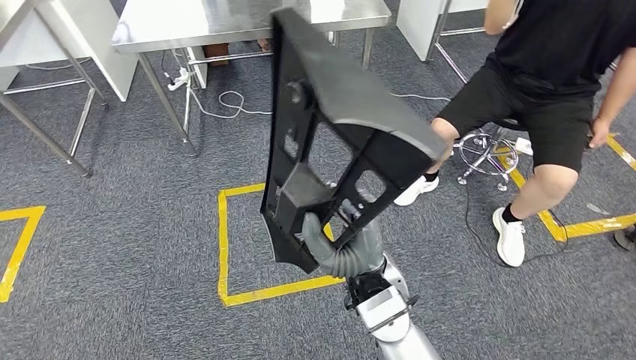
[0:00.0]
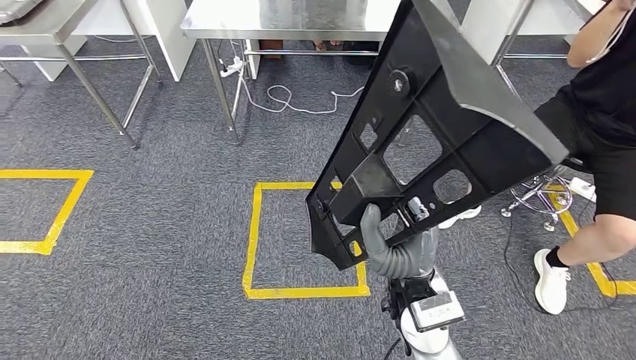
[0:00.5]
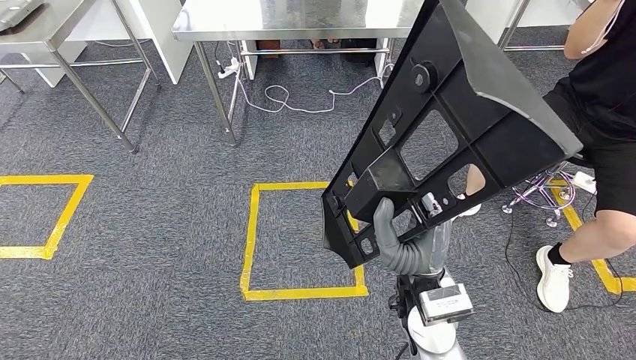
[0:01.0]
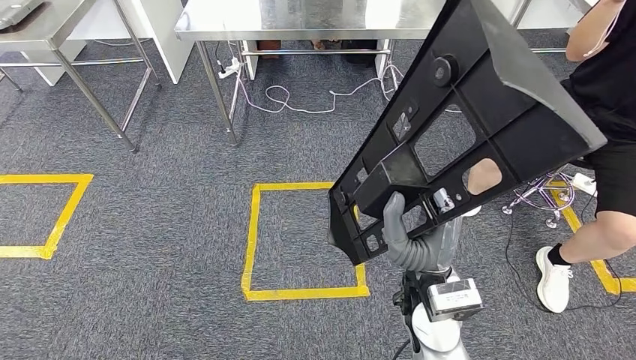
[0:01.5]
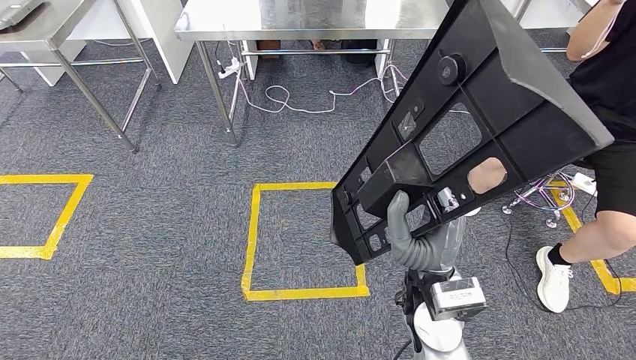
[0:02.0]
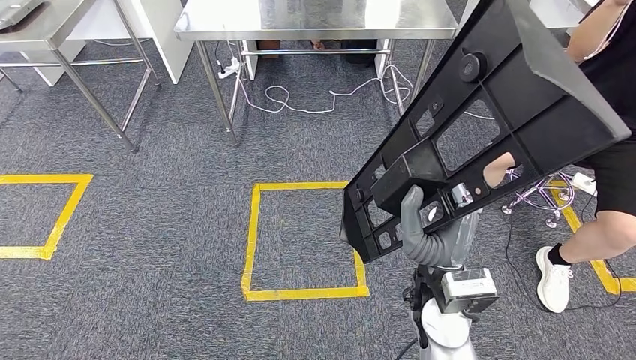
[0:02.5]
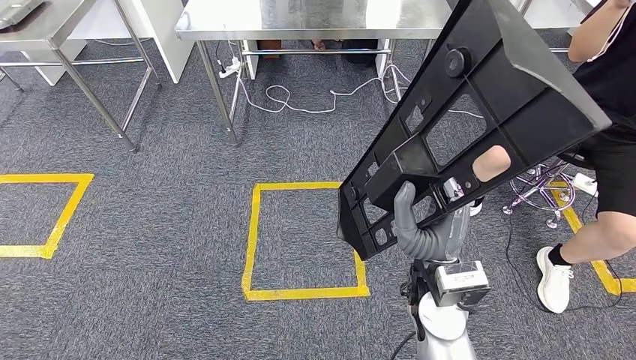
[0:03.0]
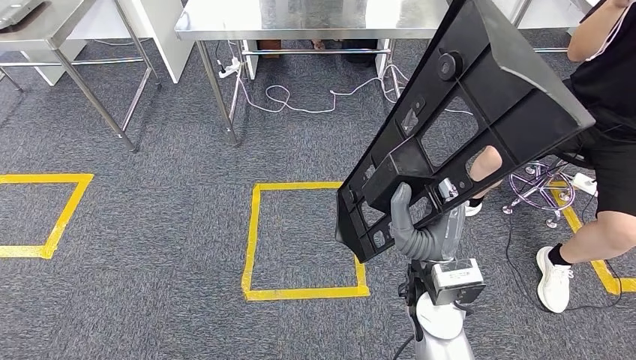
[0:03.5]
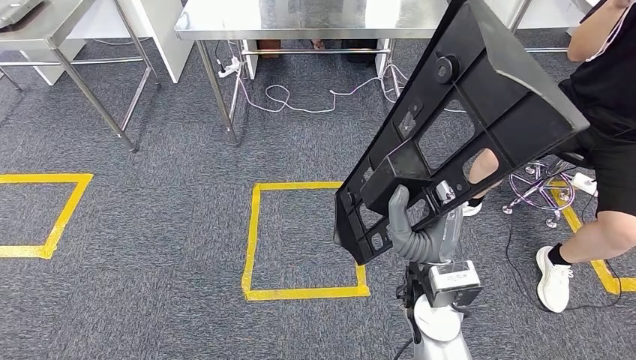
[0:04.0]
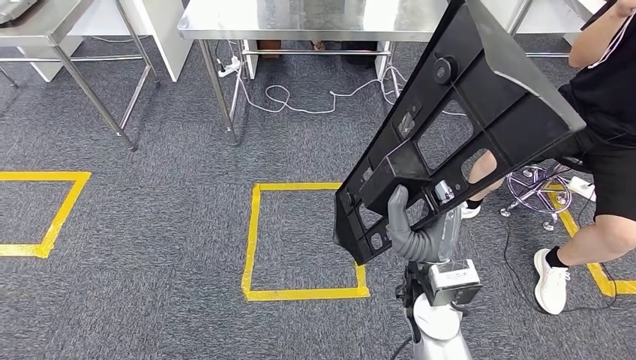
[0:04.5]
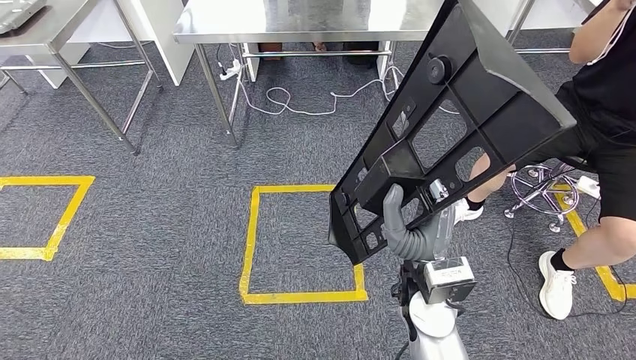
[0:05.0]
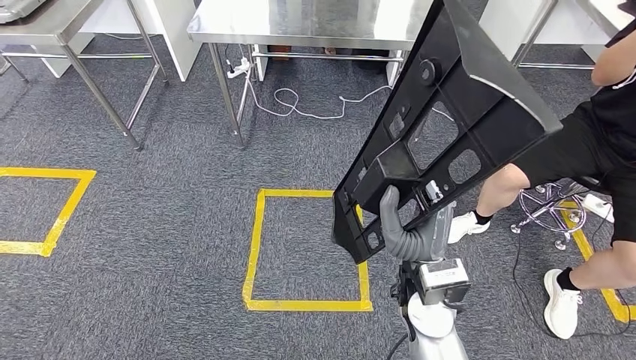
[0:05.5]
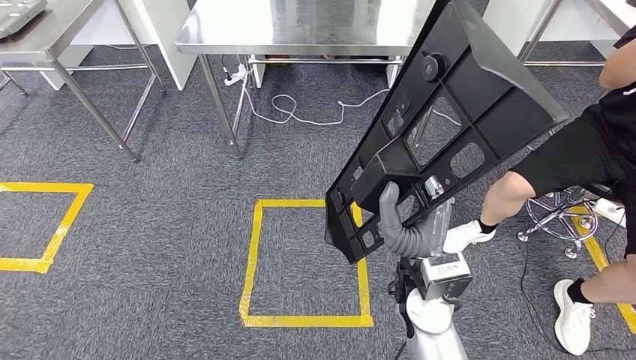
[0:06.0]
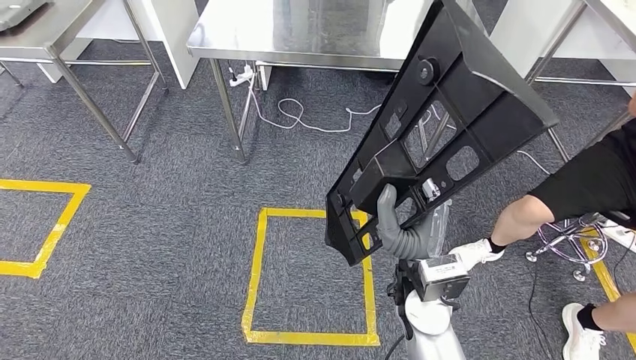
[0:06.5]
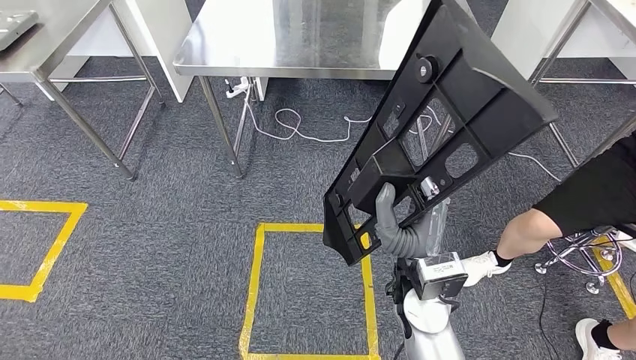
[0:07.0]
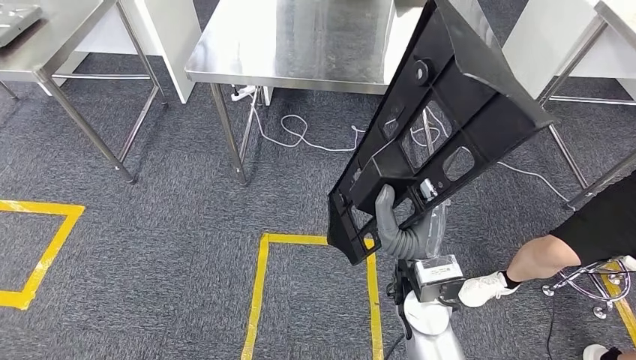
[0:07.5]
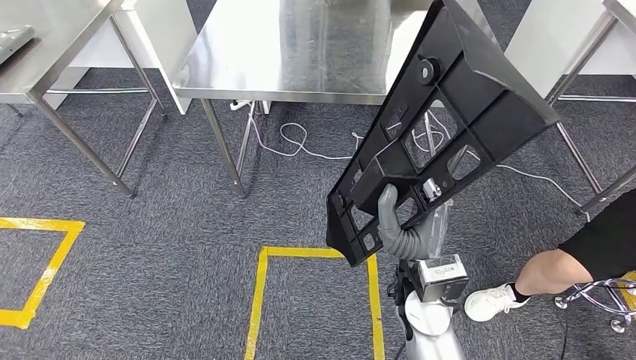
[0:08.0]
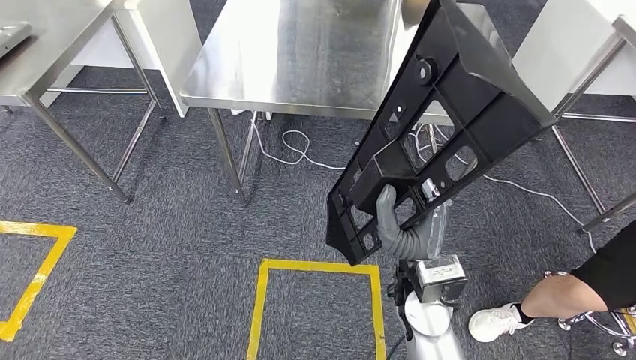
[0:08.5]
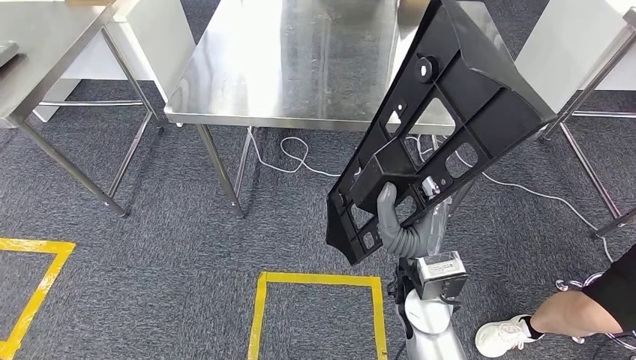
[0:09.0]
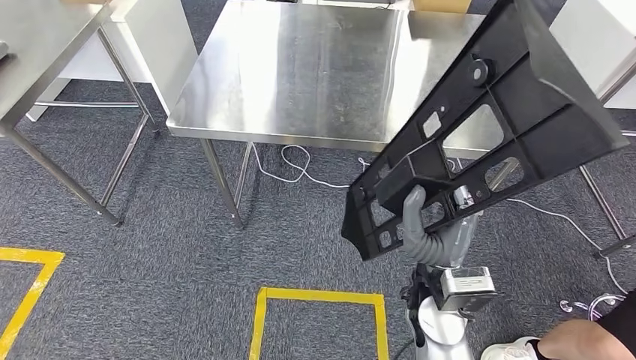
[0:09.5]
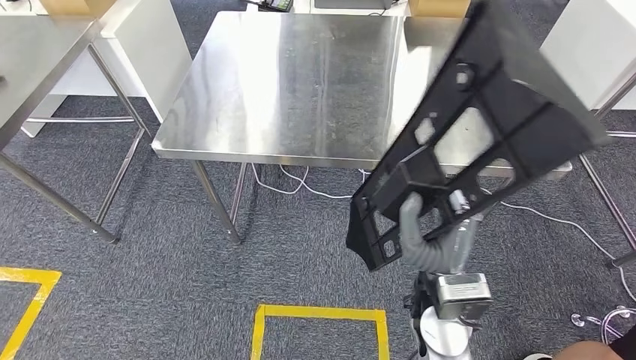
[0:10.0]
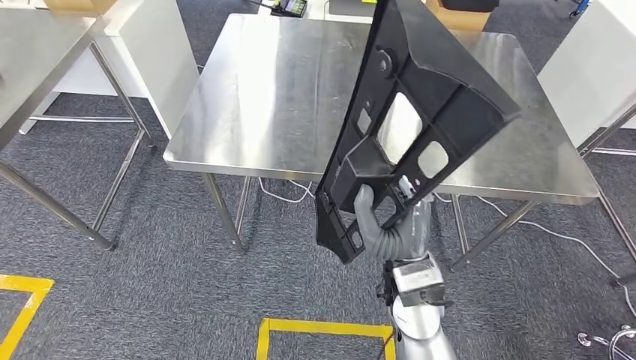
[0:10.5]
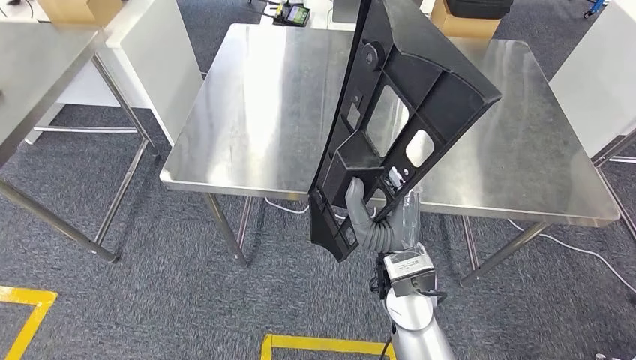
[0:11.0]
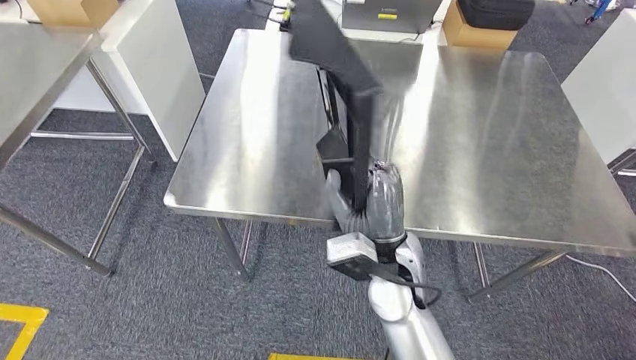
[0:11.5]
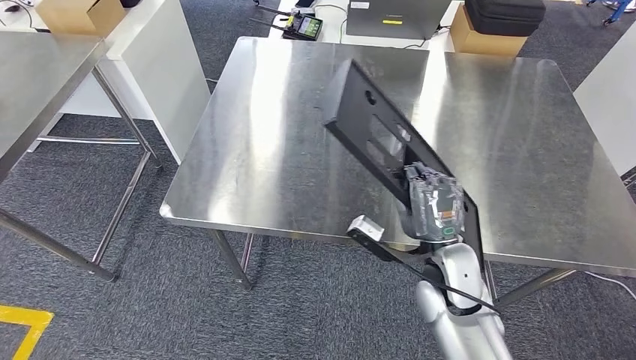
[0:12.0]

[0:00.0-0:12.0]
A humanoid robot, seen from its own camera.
Step, 0:00.0 to 0:08.5: Move the large material to the front of the workbench.
0:02.0 to 0:04.0: The hands make only small movements.

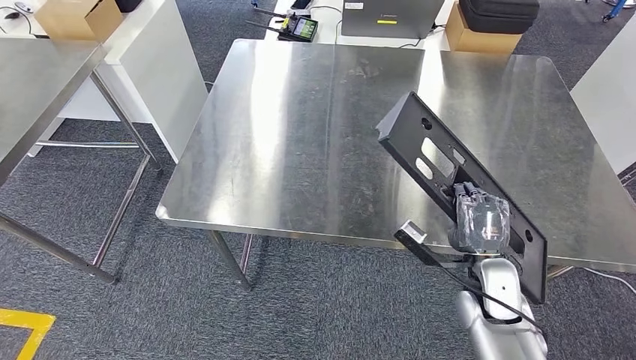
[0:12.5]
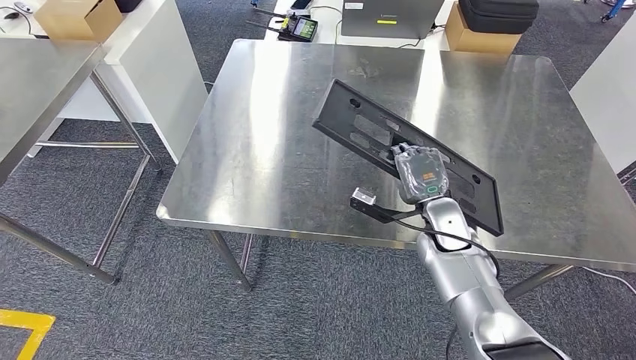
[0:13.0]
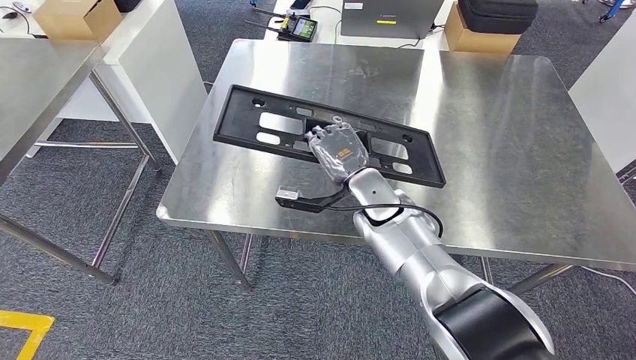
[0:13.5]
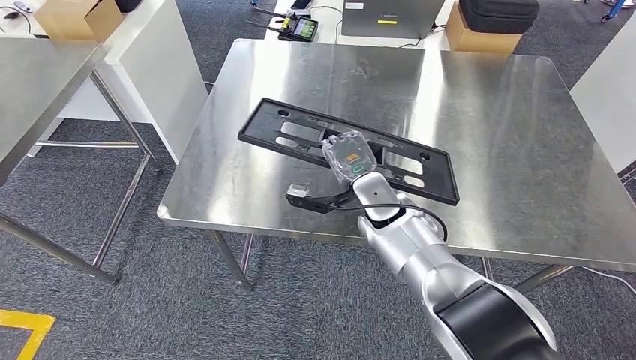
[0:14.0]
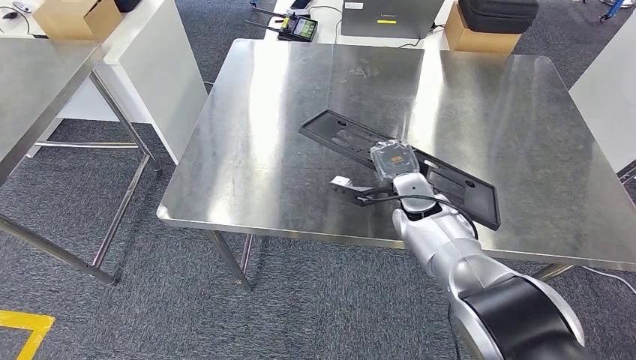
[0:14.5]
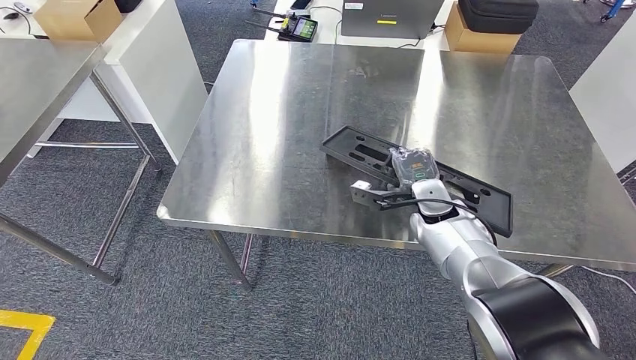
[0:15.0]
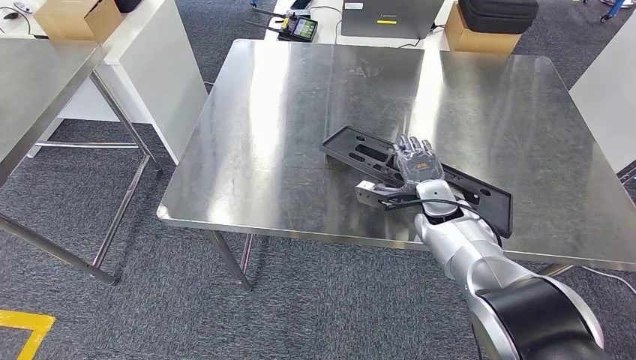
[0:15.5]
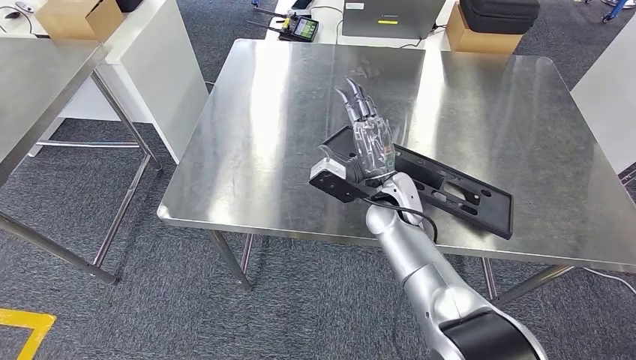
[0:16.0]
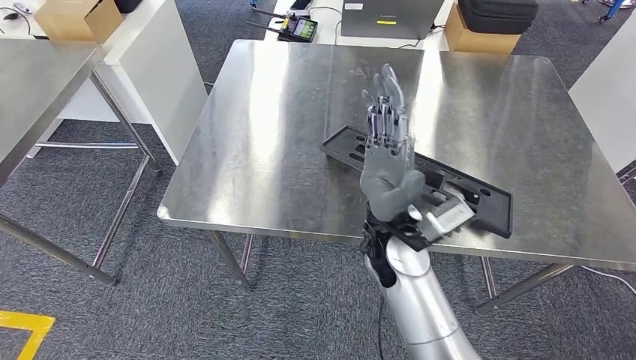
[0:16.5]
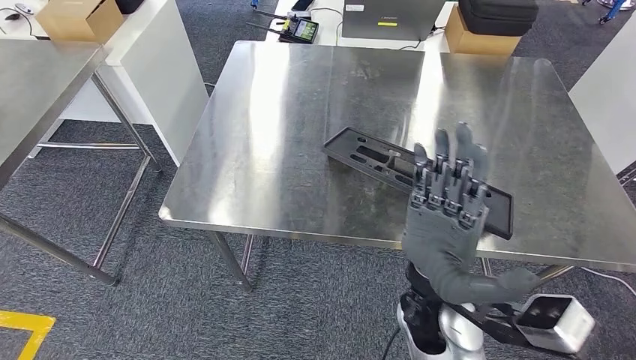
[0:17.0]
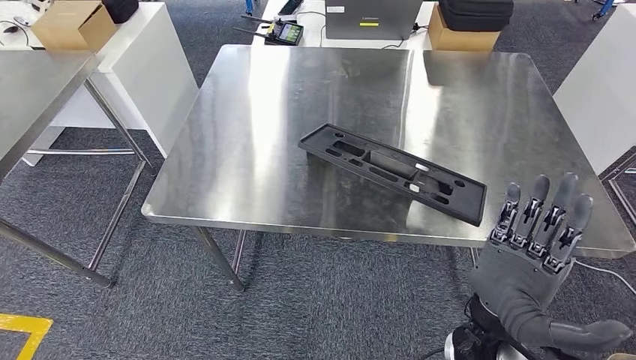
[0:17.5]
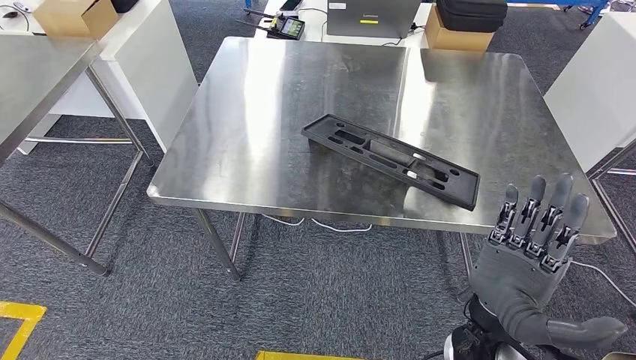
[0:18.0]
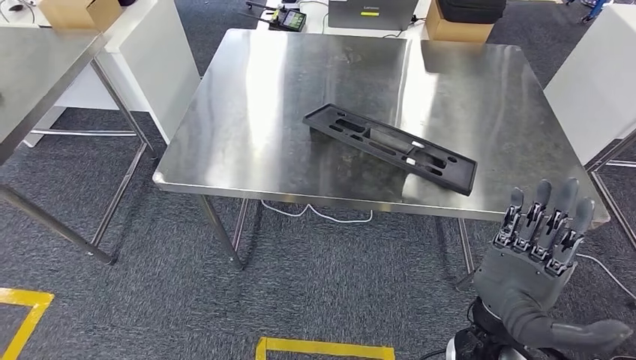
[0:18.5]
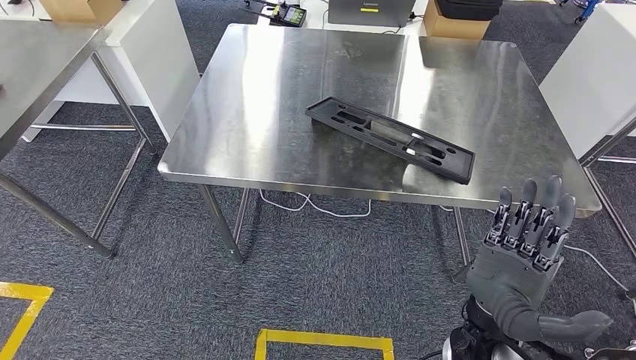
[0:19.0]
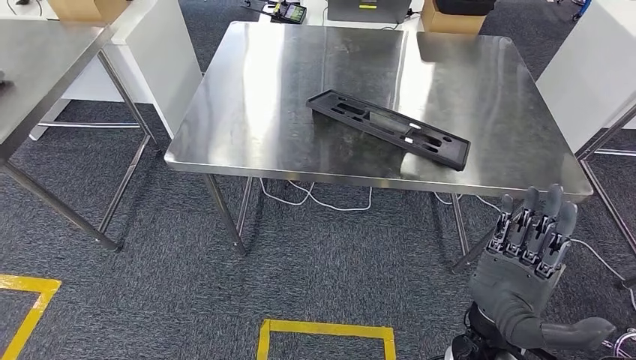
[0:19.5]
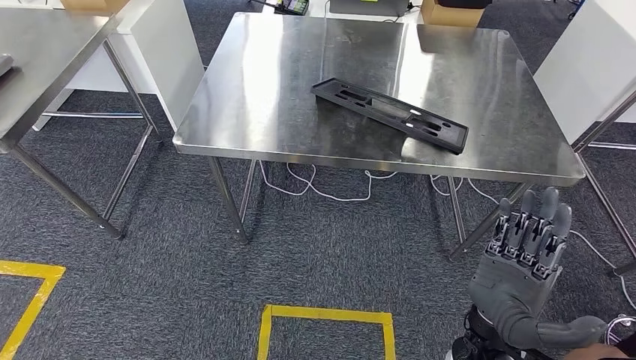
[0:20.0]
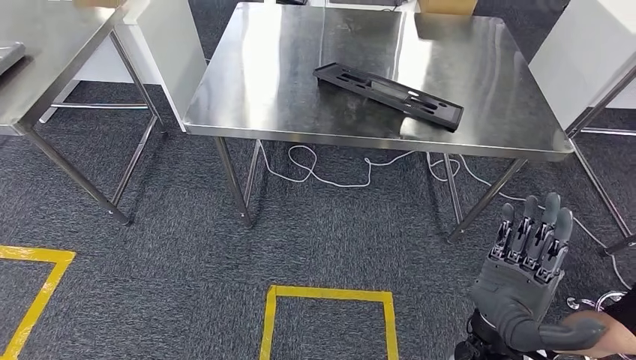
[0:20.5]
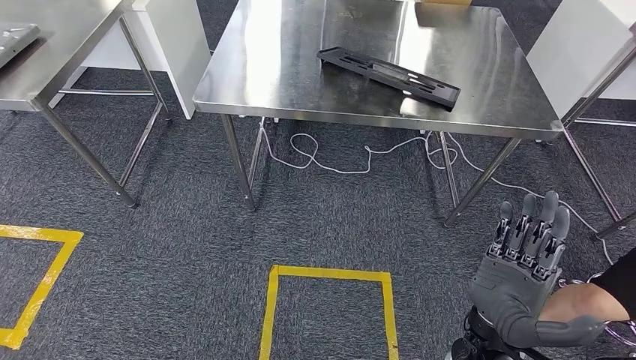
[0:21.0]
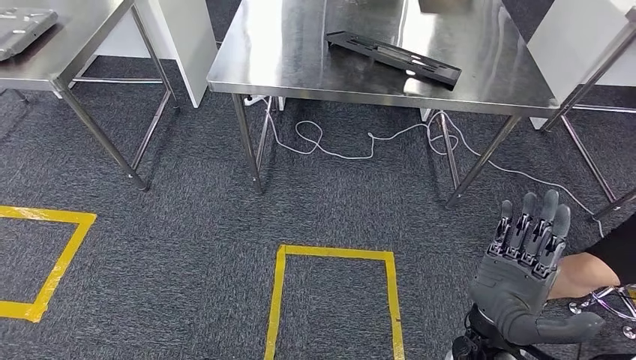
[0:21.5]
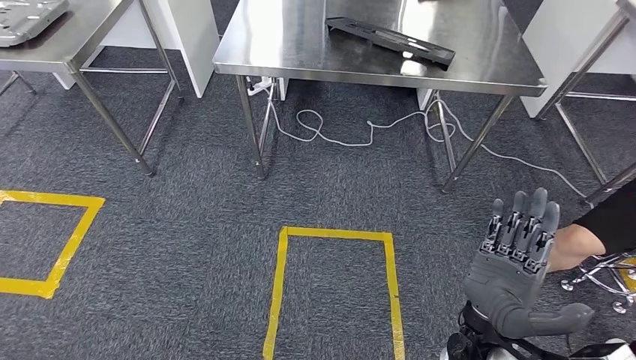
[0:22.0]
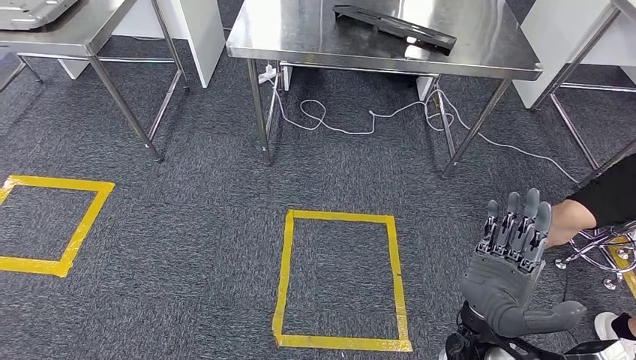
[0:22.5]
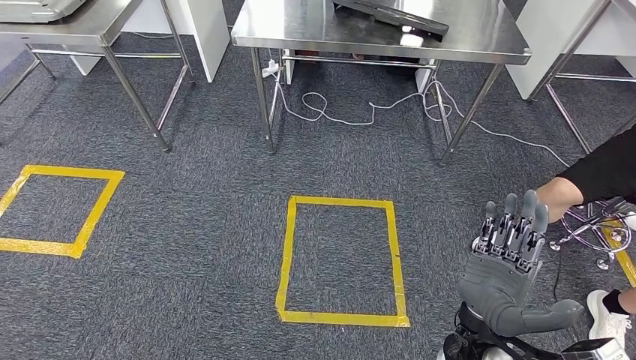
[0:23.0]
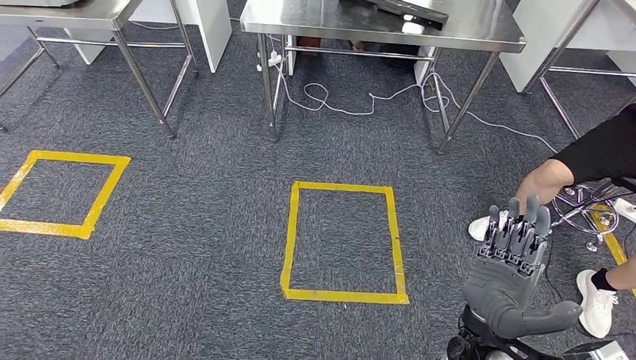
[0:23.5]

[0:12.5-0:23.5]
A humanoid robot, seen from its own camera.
Step, 0:12.5 to 0:20.5: Insert the large material into the corresponding hole on the workbench.
0:12.5 to 0:14.5: The right hand is displaced forward and to the left by approximately 20 cm.
0:14.5 to 0:16.0: The right hand changes place by roughly 5 cm.
